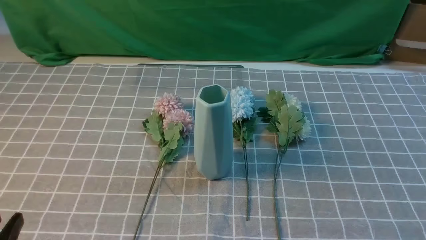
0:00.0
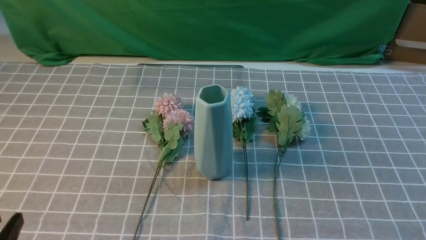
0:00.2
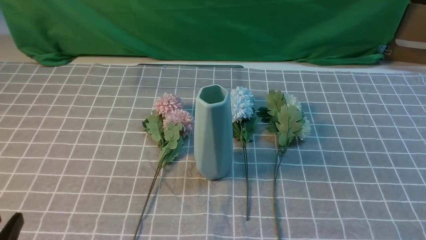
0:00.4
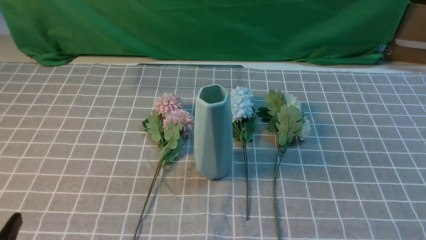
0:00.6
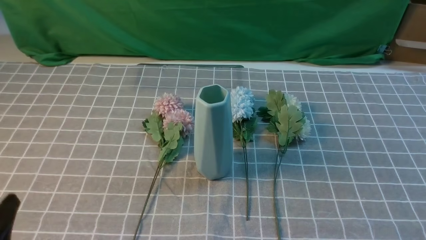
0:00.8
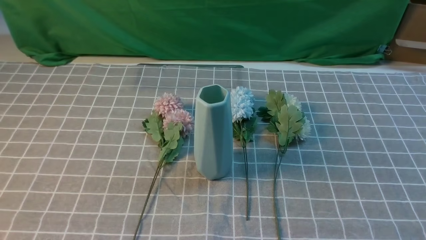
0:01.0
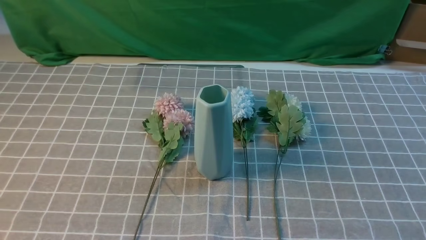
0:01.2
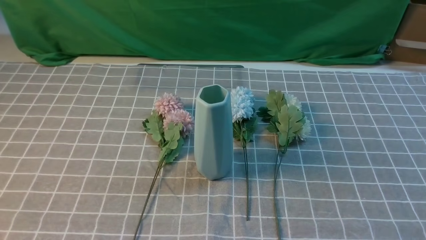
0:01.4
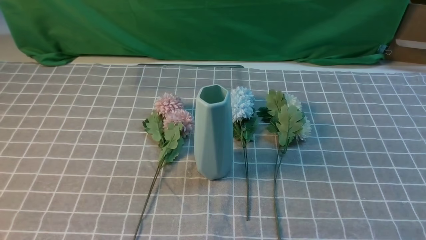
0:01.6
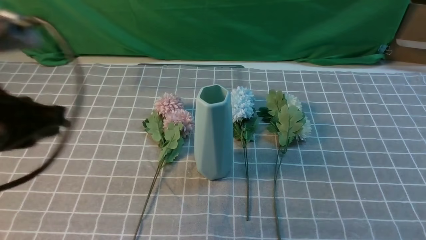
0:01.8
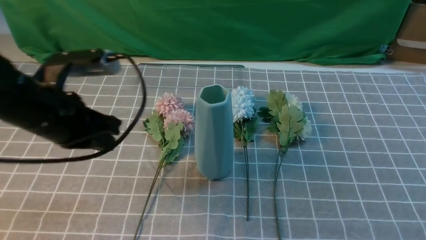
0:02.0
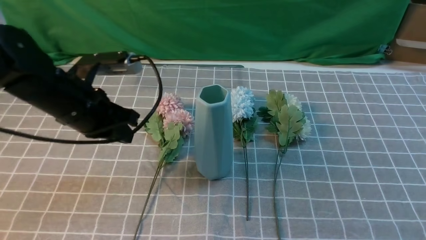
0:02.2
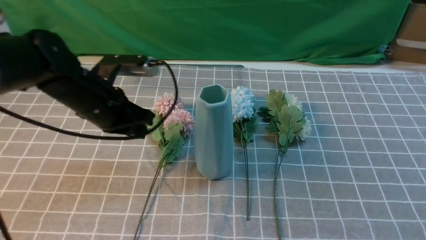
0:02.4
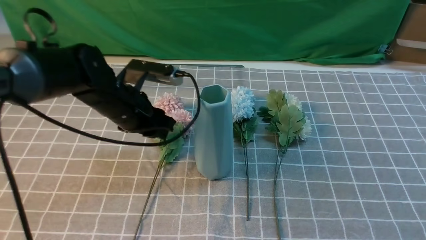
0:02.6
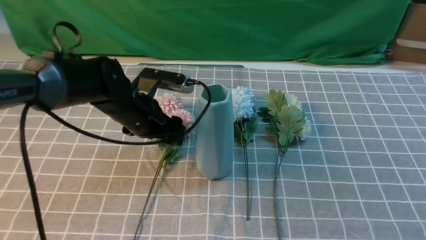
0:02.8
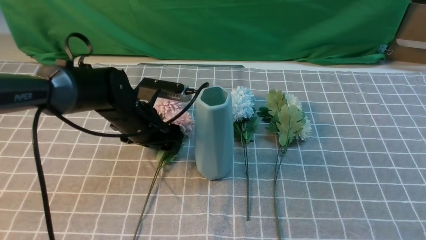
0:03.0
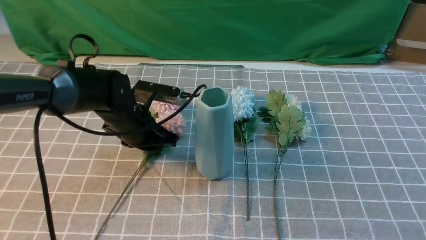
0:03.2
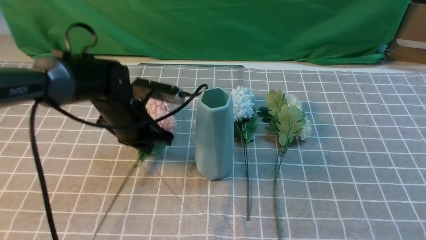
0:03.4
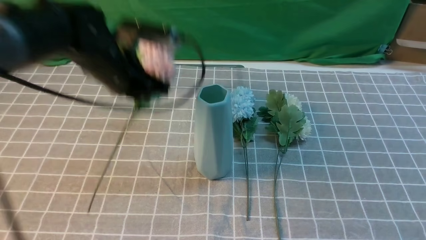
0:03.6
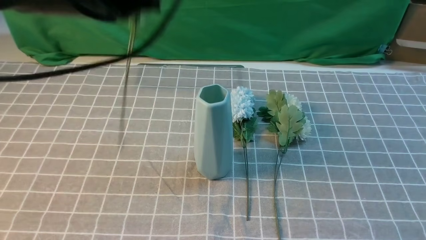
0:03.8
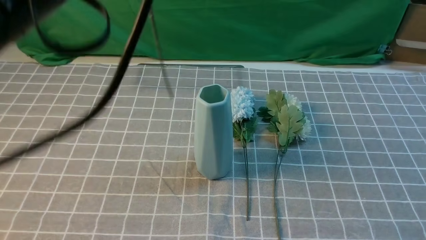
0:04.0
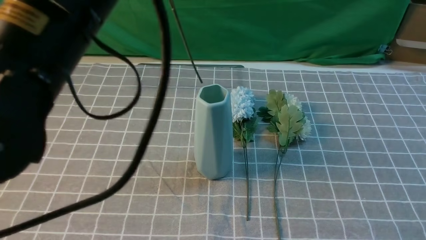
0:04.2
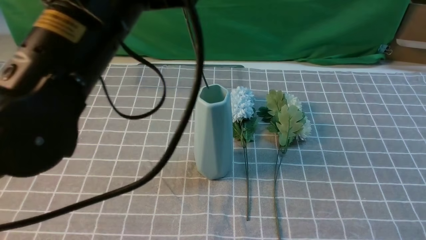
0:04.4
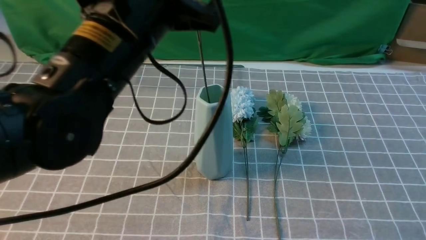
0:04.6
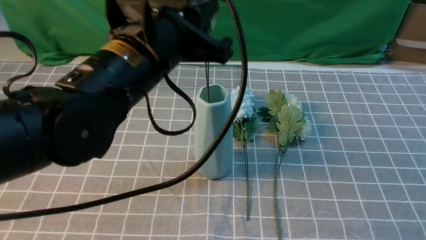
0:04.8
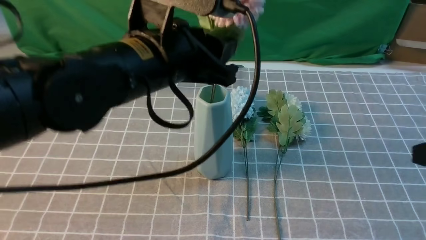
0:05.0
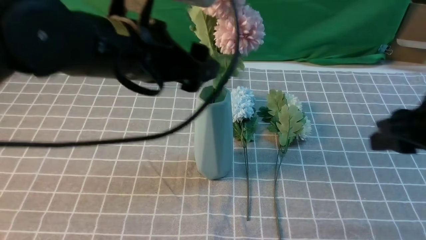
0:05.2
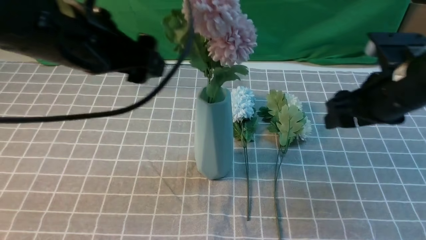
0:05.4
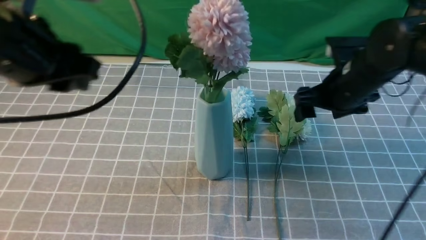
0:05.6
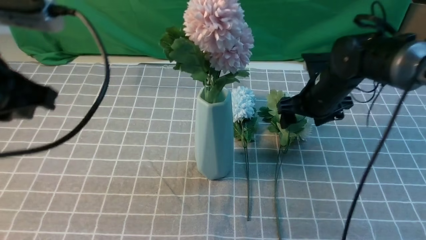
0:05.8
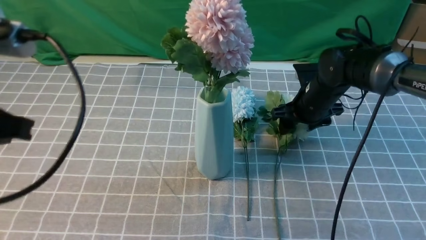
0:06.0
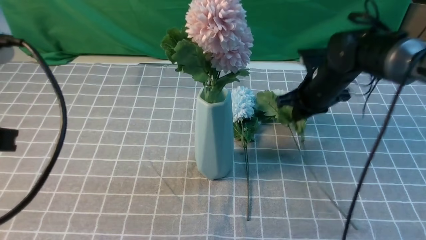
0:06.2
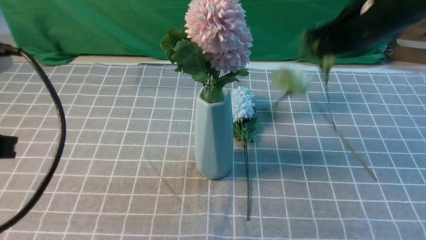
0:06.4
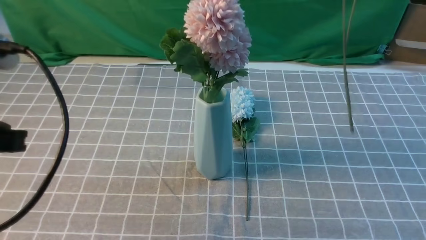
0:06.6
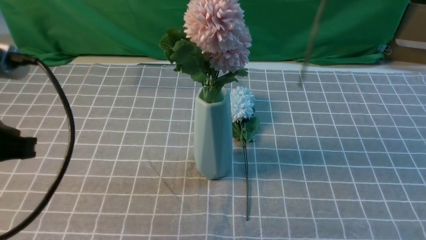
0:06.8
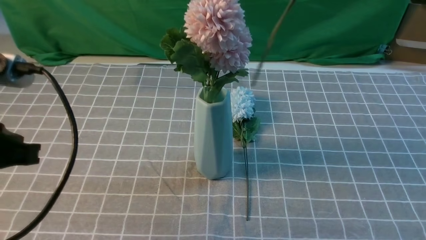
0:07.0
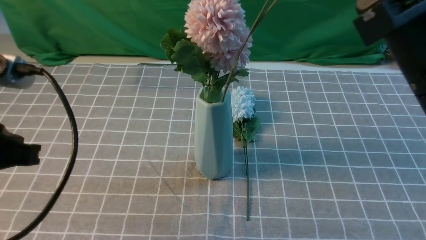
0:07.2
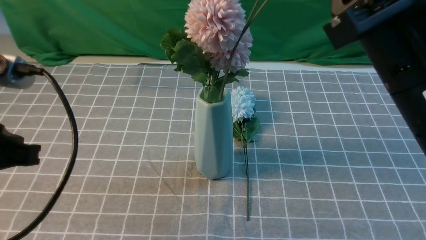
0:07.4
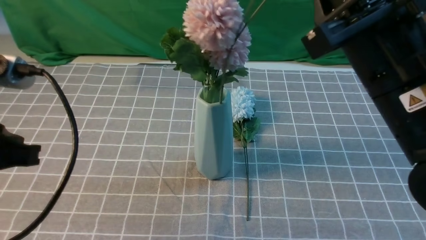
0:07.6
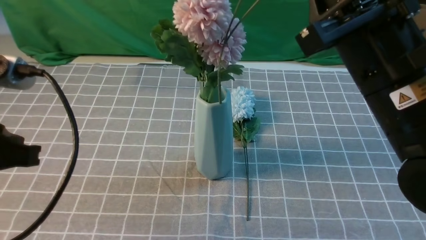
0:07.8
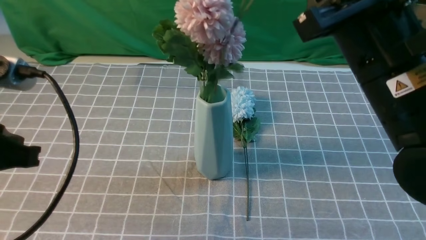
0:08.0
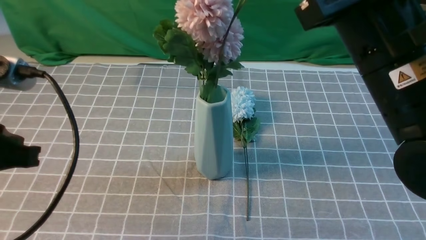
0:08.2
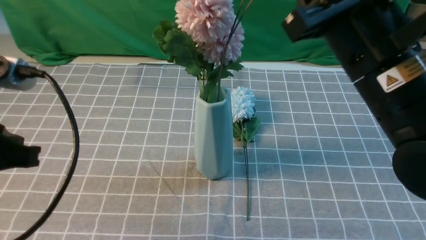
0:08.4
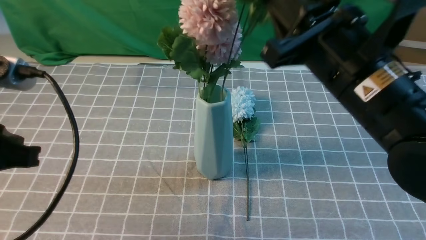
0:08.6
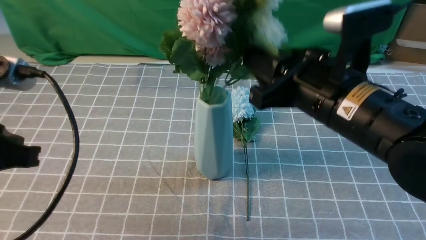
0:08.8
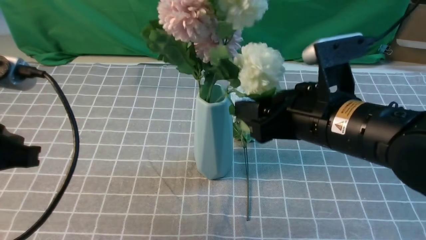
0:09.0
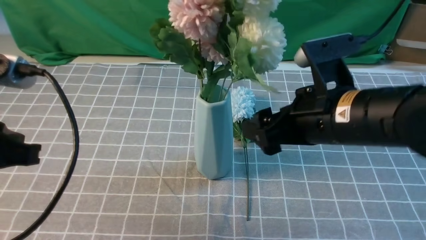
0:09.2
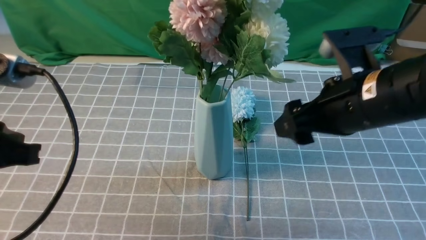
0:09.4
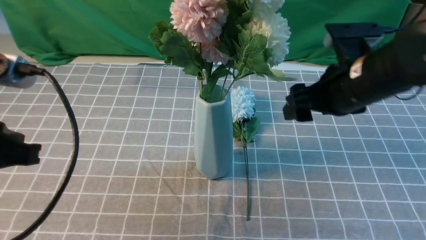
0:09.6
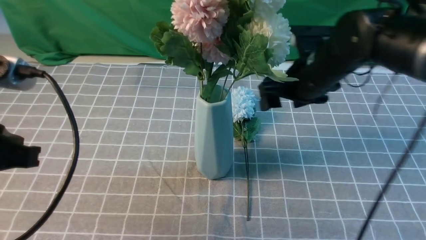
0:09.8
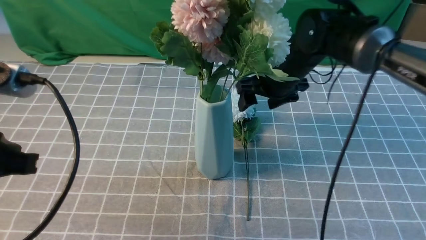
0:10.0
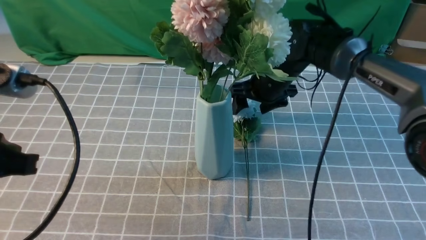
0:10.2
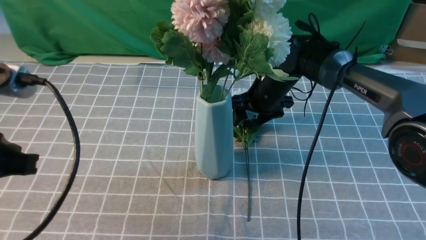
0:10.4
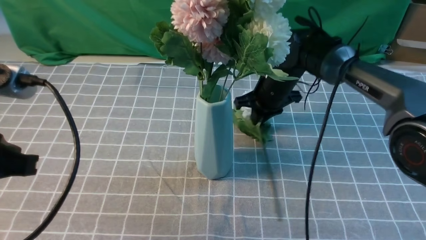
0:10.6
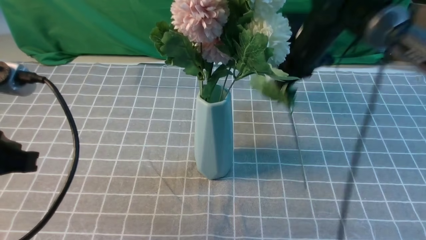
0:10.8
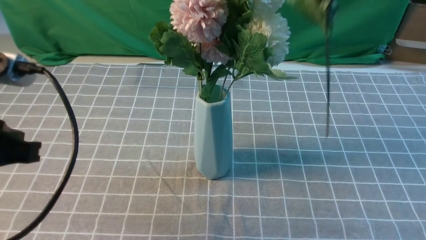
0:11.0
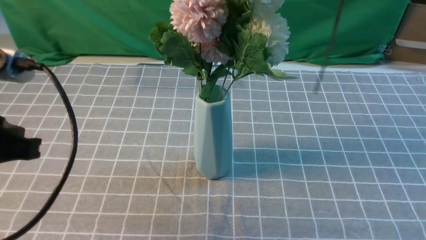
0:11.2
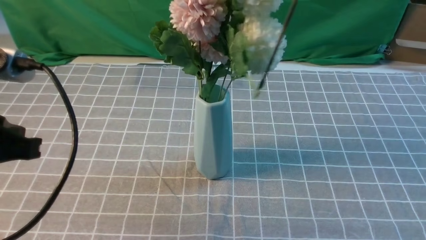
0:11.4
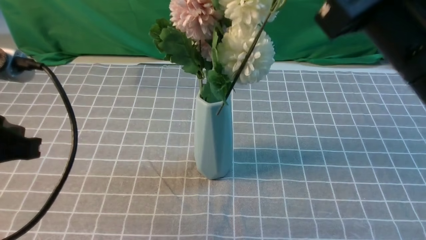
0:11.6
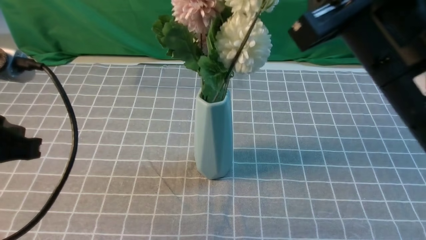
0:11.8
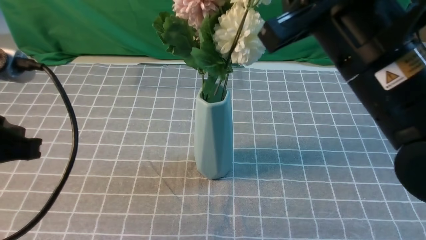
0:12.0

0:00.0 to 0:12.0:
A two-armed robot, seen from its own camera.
Task of the whole recording: insert the flowers into the vase on the table with the grey tablecloth.
Step, 0:00.0 to 0:03.2: use the left arm to grab a bunch of fresh flowers.
Step, 0:03.4 to 0:05.2: use the left arm to insert the flowers into the vase.
Step, 0:05.4 to 0:06.0: use the right arm to grab a bunch of fresh flowers.
Step, 0:06.4 to 0:09.2: use the right arm to insert the flowers into the vase.
Step, 0:09.4 to 0:10.4: use the right arm to grab a bunch of fresh flowers.
0:01.6 to 0:03.0: The left gripper goes approximately 35 cm forward, downward and to the right, and opens up. Meanwhile the right gripper is displaced upward by some 10 cm.
0:03.0 to 0:04.4: The left gripper heads upward and backward, covering about 25 cm, and closes its fingers.
0:04.4 to 0:06.0: The left gripper heads to the left and backward, covering approximately 15 cm, and opens, then closes once more. The right gripper travels forward and downward by about 35 cm, and opens its fingers.
0:06.0 to 0:07.6: The right gripper is displaced backward and upward by approximately 30 cm, and closes its fingers.
0:07.6 to 0:09.0: The right gripper heads downward, covering some 5 cm, and opens up.
0:09.0 to 0:10.4: The right gripper is displaced forward and downward by about 25 cm.
0:10.4 to 0:12.0: The right gripper heads backward and upward, covering some 35 cm, and closes up.

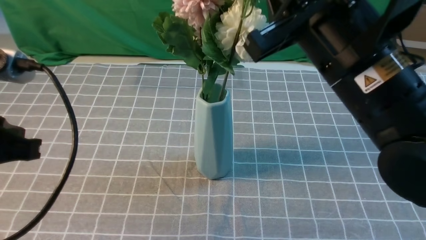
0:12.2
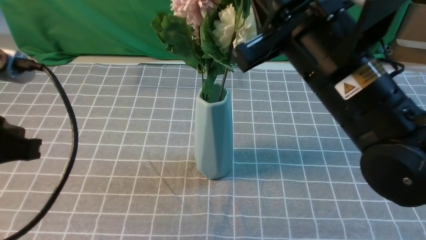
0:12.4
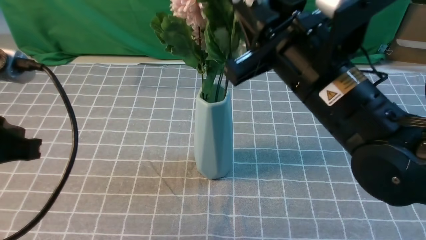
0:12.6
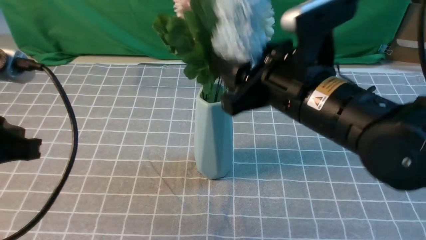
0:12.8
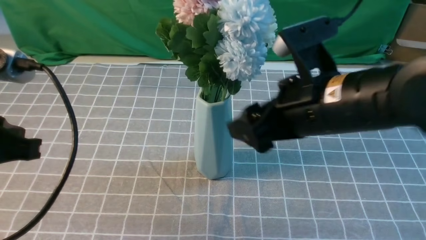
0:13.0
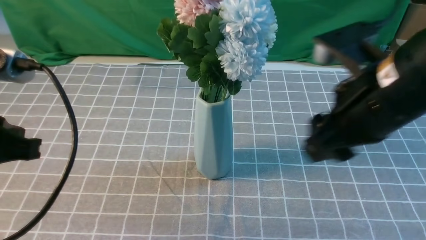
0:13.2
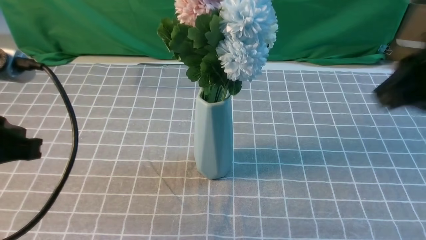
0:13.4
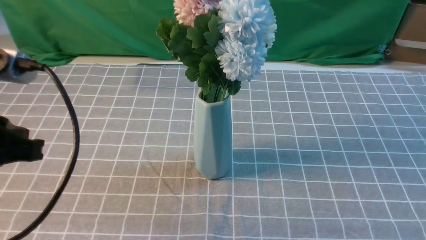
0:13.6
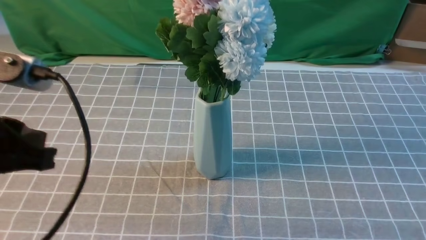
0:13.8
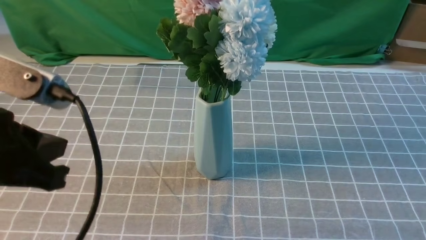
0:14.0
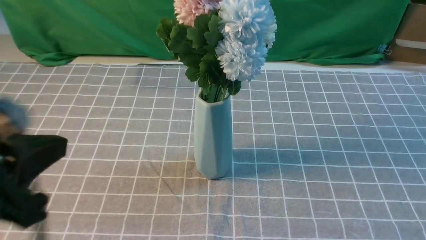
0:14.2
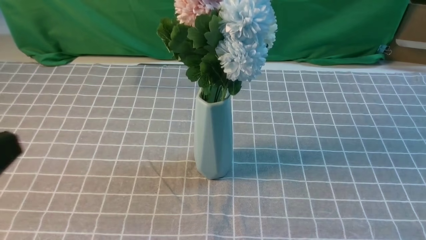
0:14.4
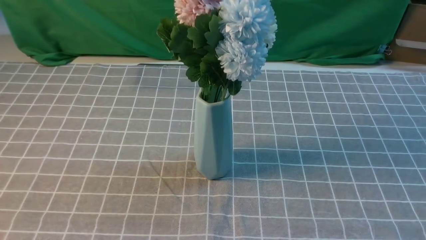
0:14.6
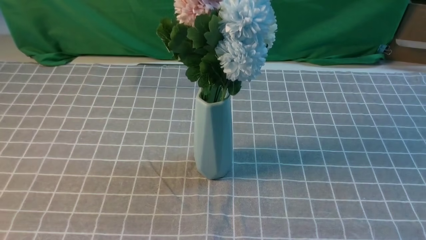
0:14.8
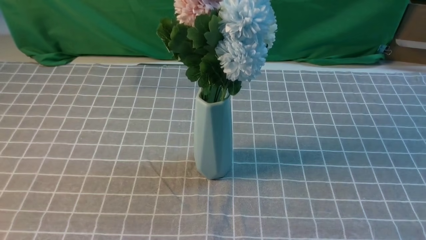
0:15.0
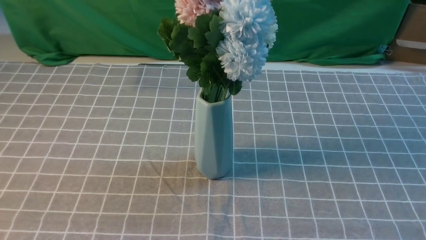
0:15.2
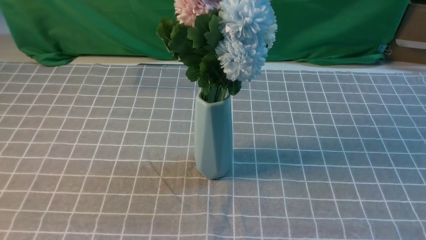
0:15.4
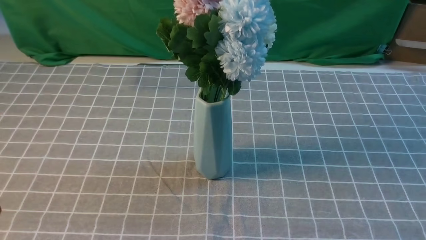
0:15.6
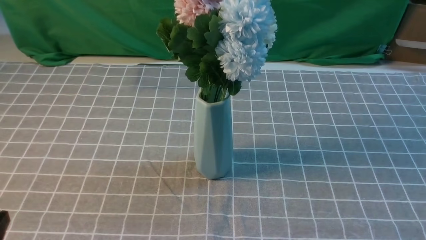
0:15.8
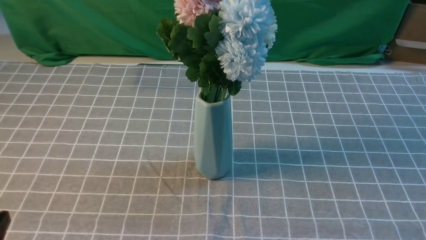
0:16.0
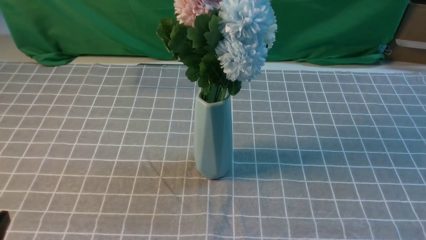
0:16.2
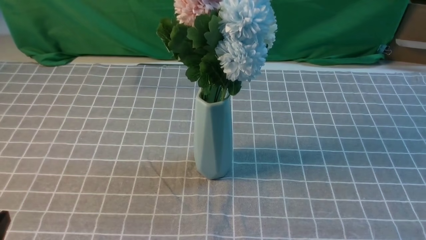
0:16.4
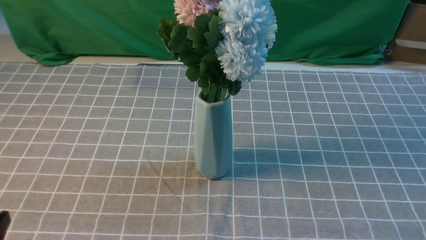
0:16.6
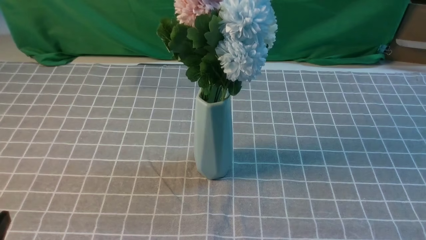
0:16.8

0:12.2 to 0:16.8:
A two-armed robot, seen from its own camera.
Task of the whole recording: insert the flowers into the vase on the table with the grey tablecloth.
0:12.2 to 0:13.8: The right gripper shifts about 25 cm backward and to the right, and opens, then closes again.
0:13.8 to 0:15.2: The right gripper is displaced downward by approximately 5 cm. The left gripper travels backward by approximately 10 cm.
